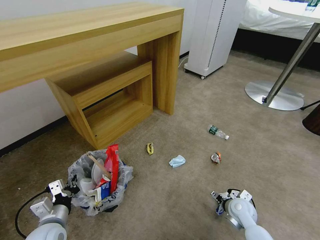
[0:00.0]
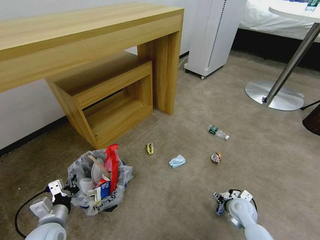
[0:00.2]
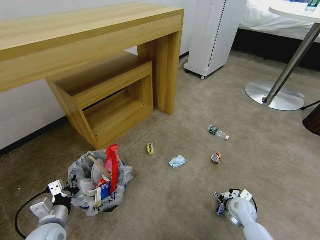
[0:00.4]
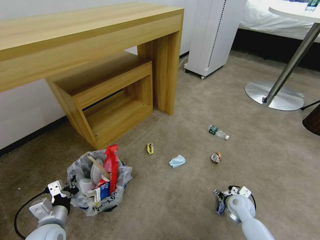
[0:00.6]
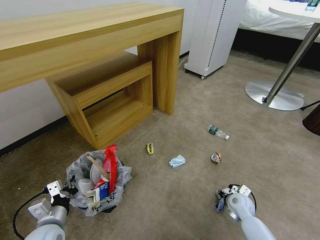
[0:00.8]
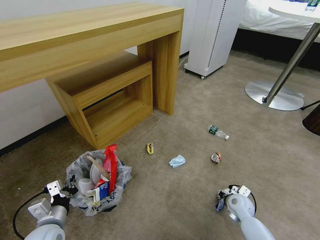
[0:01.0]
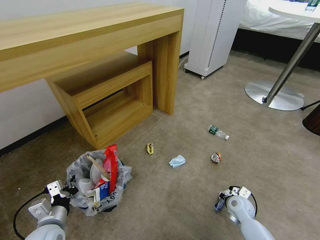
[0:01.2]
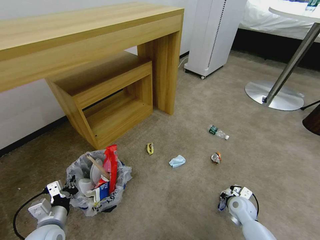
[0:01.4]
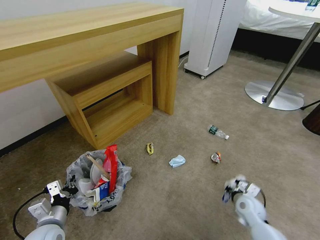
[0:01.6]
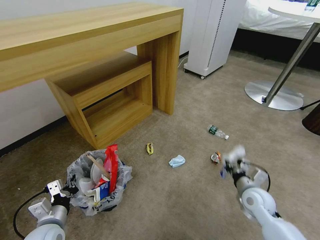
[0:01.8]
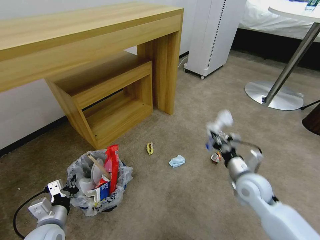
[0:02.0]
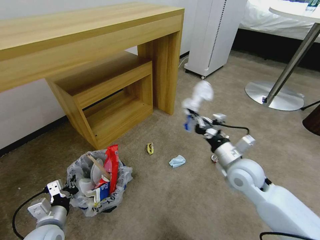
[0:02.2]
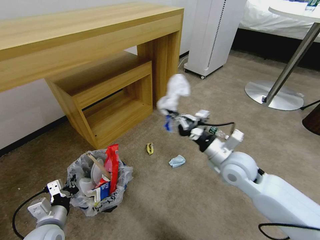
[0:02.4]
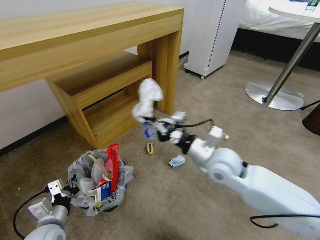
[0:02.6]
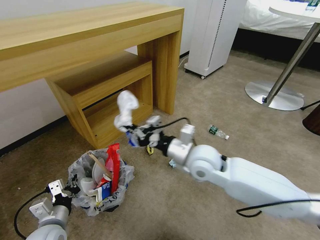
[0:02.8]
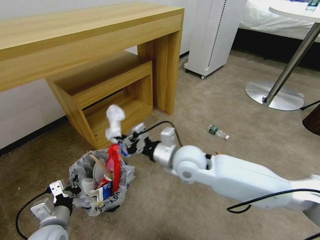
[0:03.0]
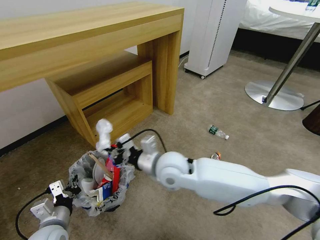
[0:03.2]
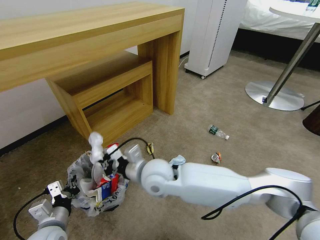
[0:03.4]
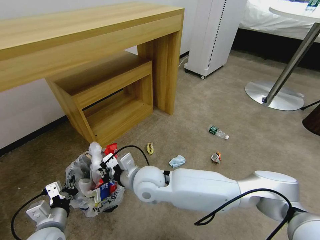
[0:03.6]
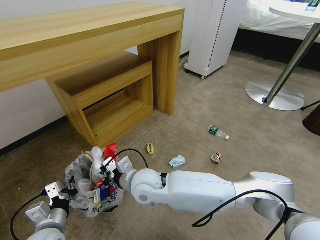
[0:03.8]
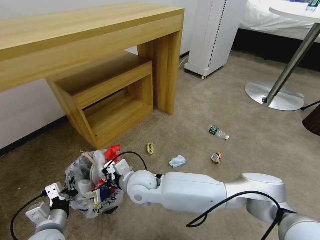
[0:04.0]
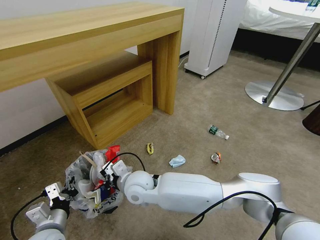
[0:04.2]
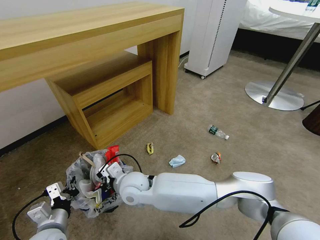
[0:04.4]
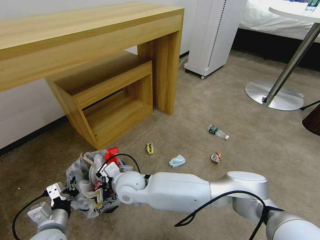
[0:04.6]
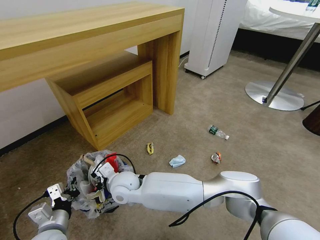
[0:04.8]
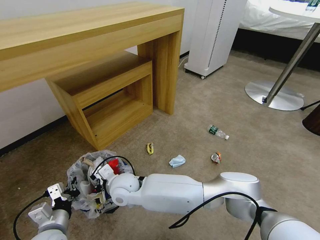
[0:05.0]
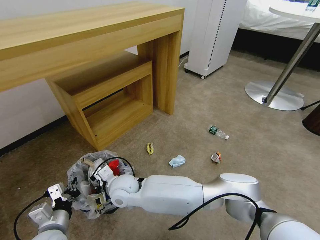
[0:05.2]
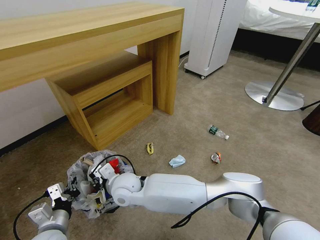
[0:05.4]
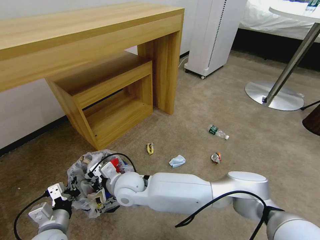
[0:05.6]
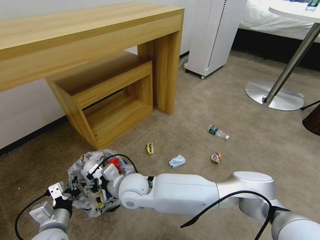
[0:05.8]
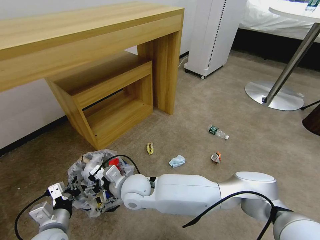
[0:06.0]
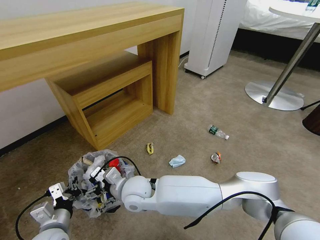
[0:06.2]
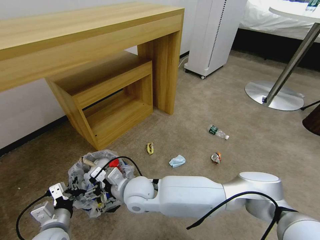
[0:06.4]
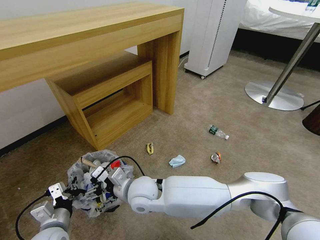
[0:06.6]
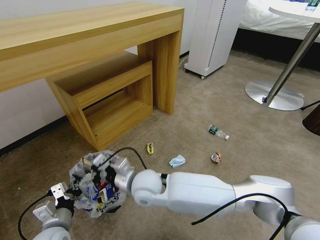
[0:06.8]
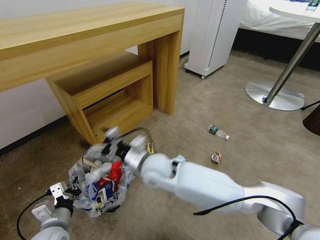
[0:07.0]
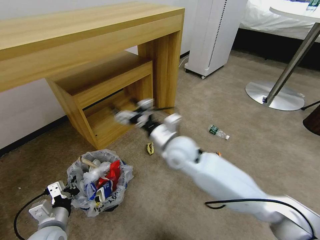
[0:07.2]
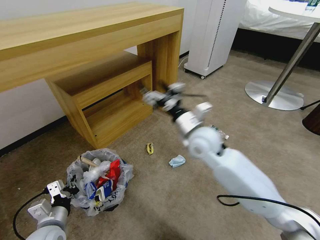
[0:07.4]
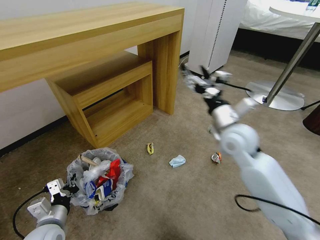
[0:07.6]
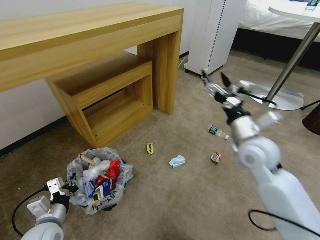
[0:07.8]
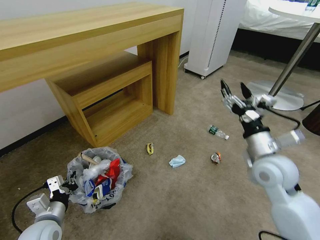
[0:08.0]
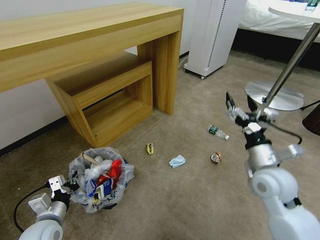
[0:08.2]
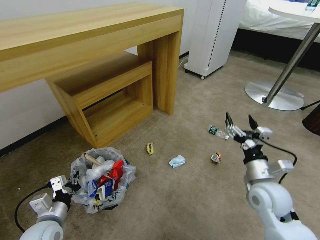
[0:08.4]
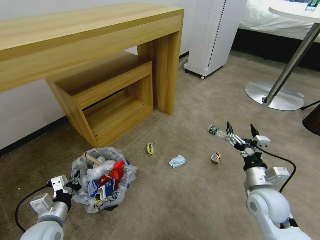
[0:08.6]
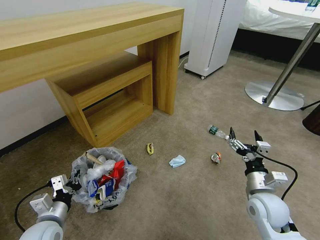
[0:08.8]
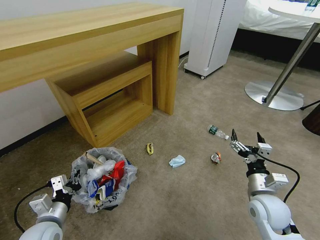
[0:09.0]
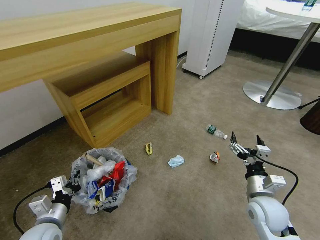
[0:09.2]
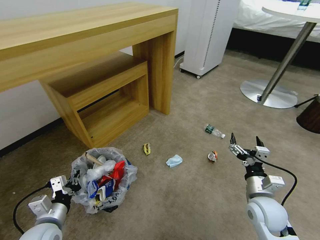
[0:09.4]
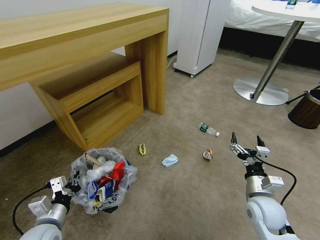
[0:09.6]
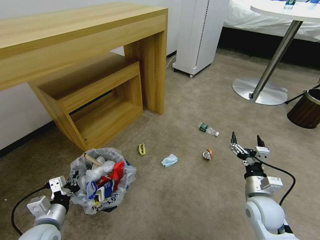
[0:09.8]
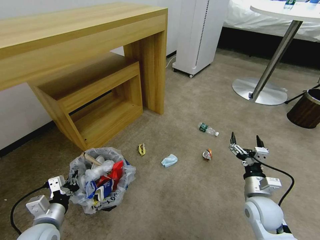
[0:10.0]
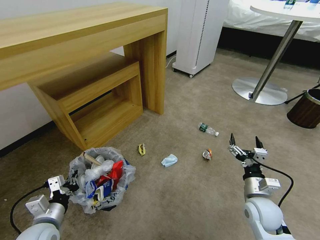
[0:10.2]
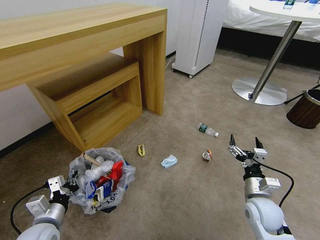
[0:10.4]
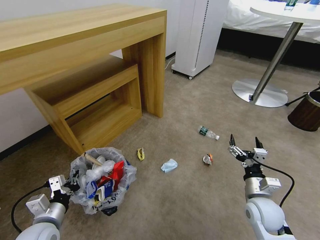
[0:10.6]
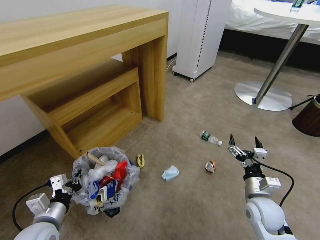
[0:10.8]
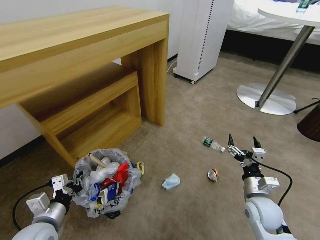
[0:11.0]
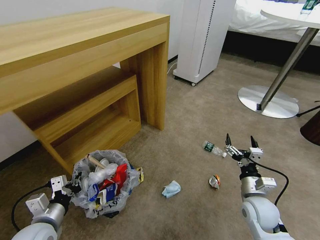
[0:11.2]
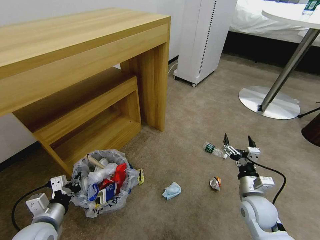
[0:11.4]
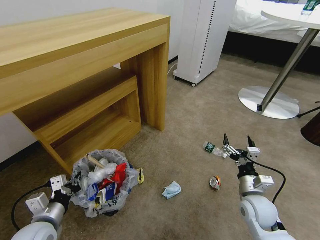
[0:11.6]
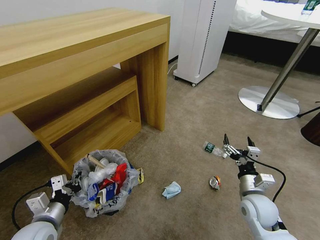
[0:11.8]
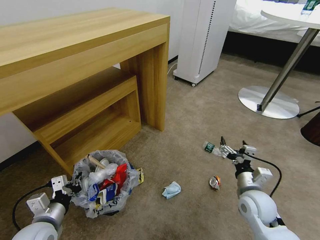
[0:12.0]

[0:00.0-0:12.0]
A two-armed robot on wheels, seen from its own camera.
Task of the whole recording: Pick up the trash bin and place the garbage on the floor into it.
0:00.0 to 0:01.6: The right gripper closes.
0:01.6 to 0:03.0: The right gripper moves upward and to the left, some 35 cm.
0:03.0 to 0:04.4: The right gripper travels to the left and downward by some 20 cm.
0:04.4 to 0:06.0: The right gripper opens its fingers.
0:06.0 to 0:07.6: The right gripper heads to the right and upward, covering approximately 35 cm.
0:07.6 to 0:09.0: The right gripper travels downward, backward and to the right by about 25 cm.

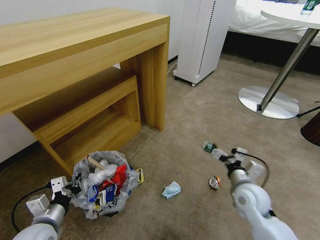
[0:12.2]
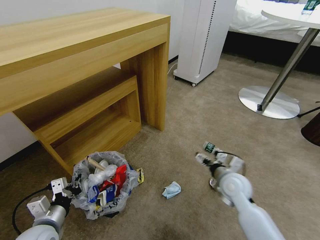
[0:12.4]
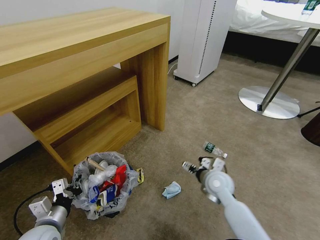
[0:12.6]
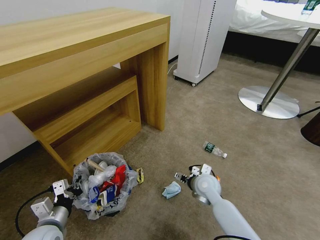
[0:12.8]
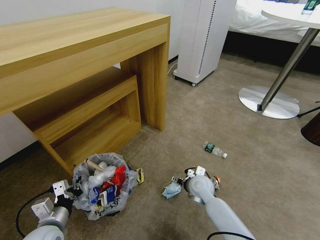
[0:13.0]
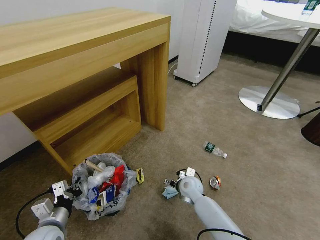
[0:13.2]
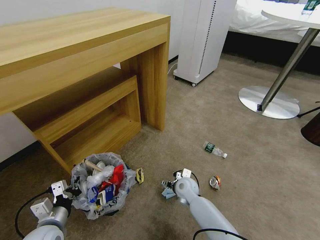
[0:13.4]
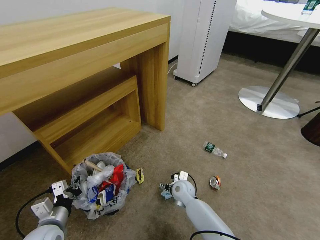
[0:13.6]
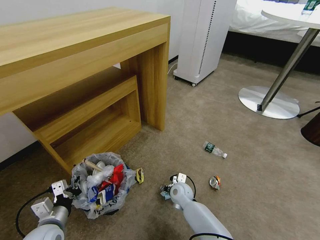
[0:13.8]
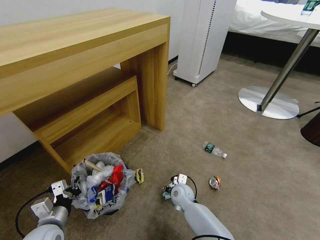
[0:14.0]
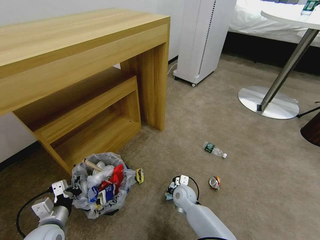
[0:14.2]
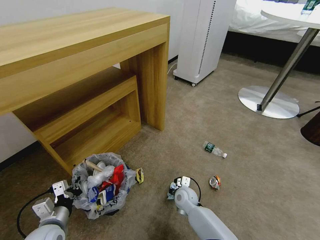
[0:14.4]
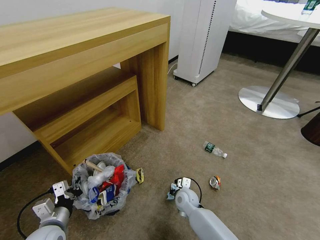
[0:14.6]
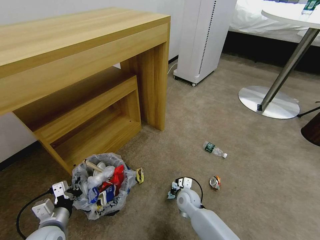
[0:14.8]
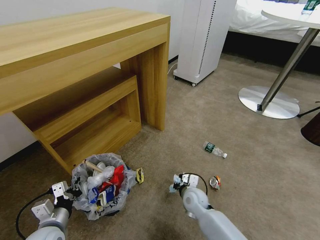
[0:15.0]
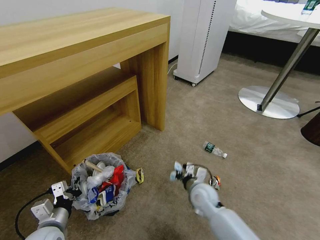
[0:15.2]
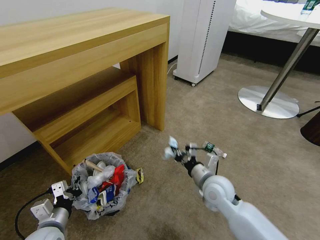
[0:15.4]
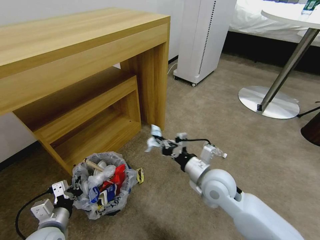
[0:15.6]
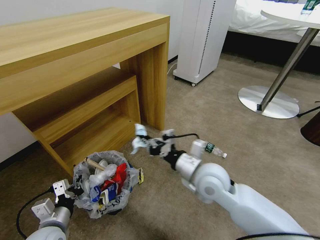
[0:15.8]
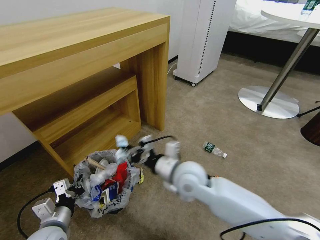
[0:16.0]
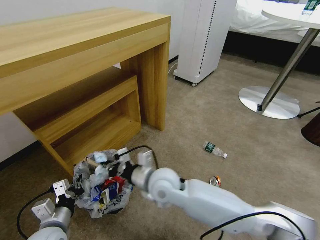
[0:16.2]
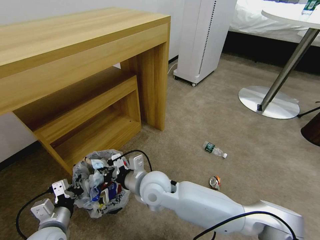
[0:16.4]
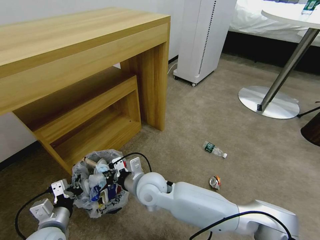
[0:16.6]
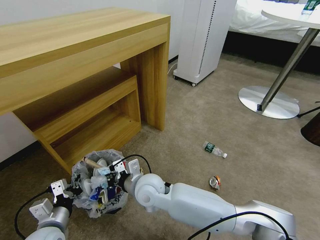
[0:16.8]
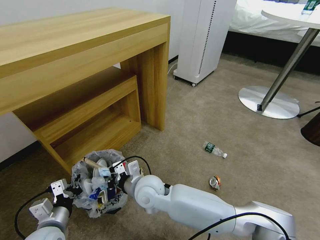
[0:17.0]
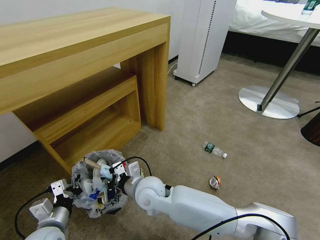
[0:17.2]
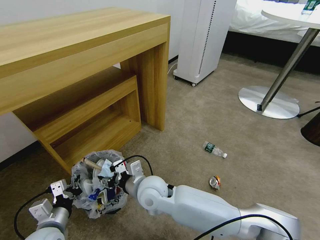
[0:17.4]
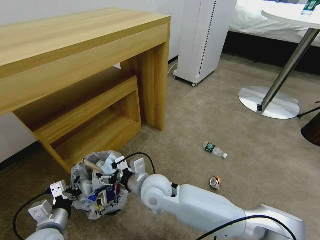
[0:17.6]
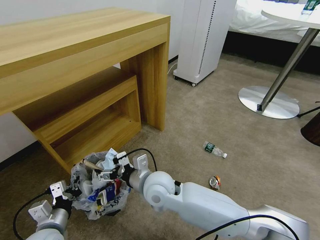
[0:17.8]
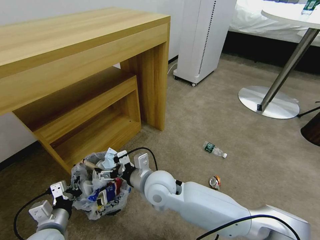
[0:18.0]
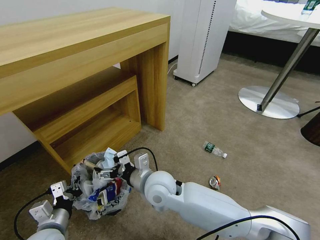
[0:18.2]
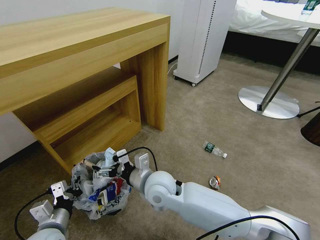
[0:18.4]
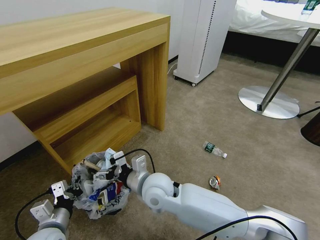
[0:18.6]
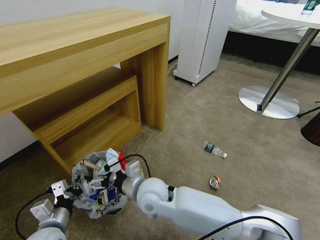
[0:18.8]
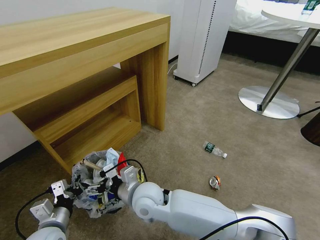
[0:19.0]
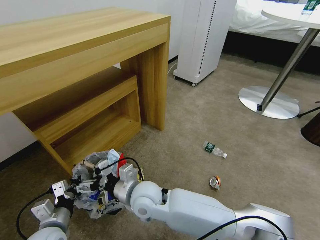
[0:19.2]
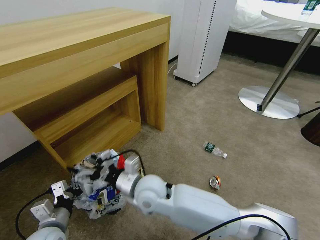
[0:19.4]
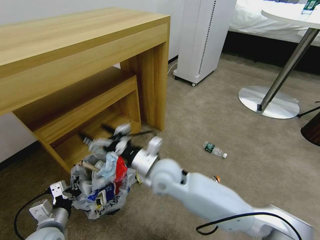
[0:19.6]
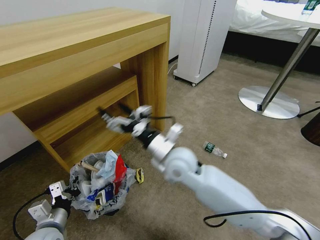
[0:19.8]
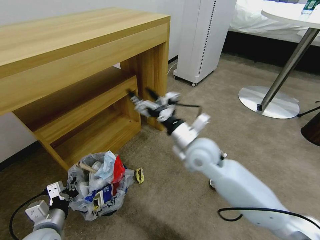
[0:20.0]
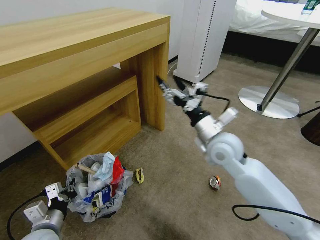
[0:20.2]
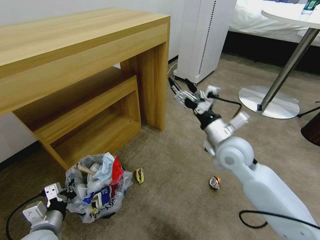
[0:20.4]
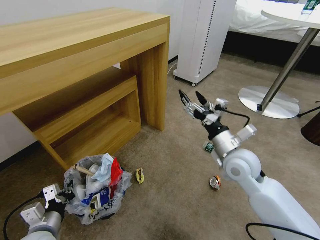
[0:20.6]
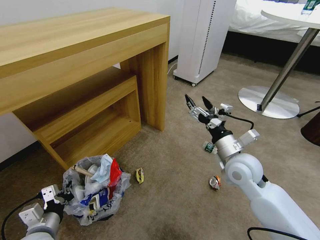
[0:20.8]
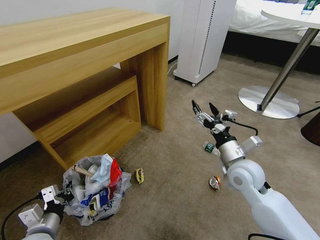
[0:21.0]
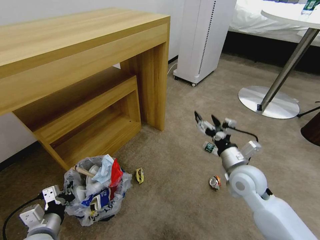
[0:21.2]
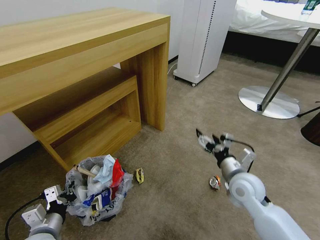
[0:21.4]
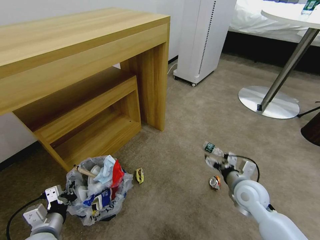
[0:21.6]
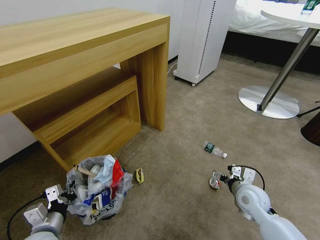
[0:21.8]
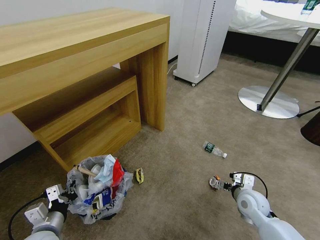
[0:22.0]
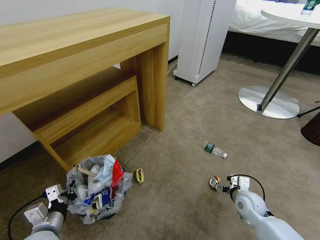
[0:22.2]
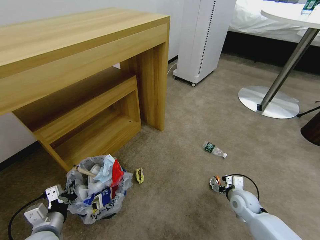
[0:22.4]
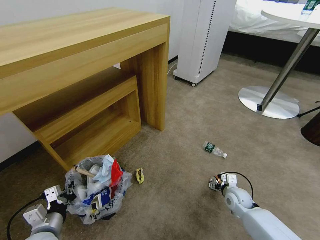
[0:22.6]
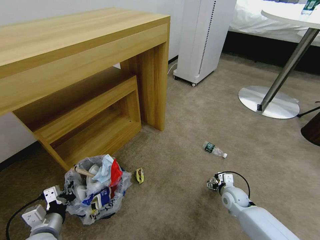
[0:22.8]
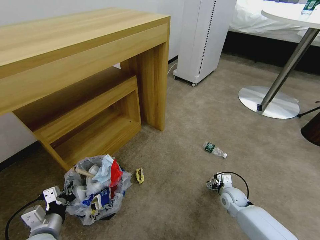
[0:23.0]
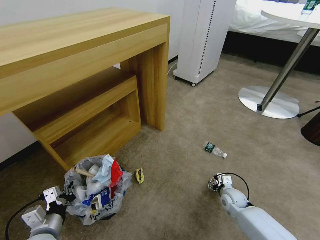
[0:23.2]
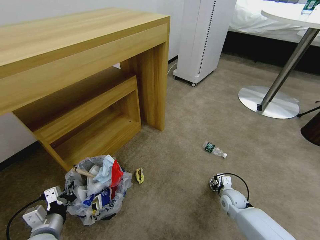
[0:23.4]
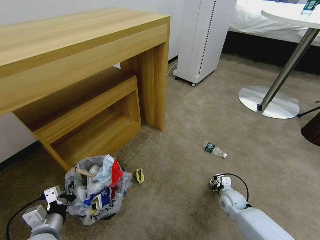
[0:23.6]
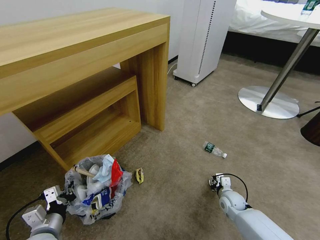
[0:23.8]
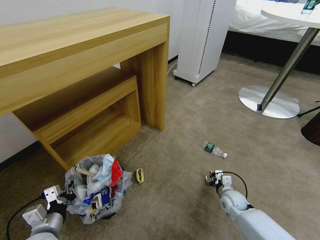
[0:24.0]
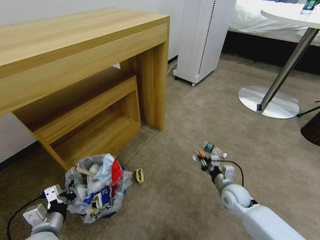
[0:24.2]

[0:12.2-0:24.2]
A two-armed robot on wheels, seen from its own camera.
Task of the whole recording: Pick up the trash bin and place the garbage on the floor into it.
0:12.2 to 0:13.8: The right gripper shifts roughly 25 cm to the left, downward and forward.
0:13.8 to 0:15.2: The right gripper travels upward and to the right by roughly 10 cm, and closes.
0:15.2 to 0:16.6: The right gripper travels to the left and upward by some 20 cm.
0:16.6 to 0:18.2: The right gripper opens its fingers.
0:18.2 to 0:19.8: The right gripper heads to the right and upward, covering about 10 cm.
0:19.8 to 0:21.2: The right gripper travels to the right by some 20 cm.
0:21.2 to 0:22.6: The right gripper goes approximately 20 cm downward.
0:22.6 to 0:24.2: The right gripper closes its fingers.
